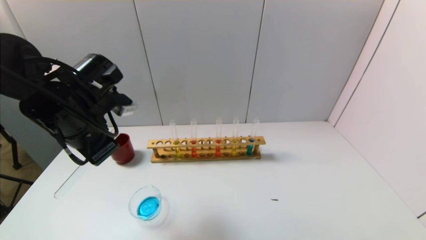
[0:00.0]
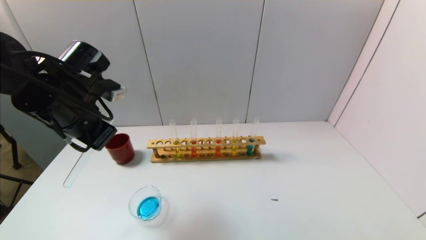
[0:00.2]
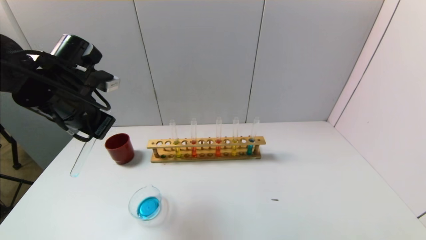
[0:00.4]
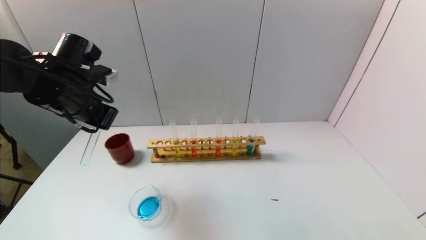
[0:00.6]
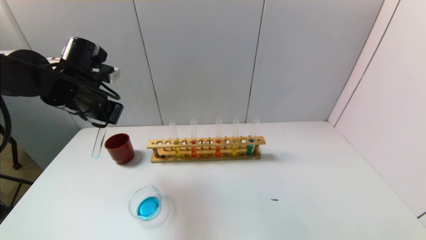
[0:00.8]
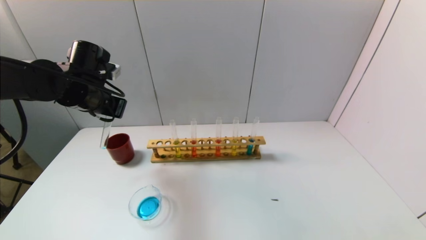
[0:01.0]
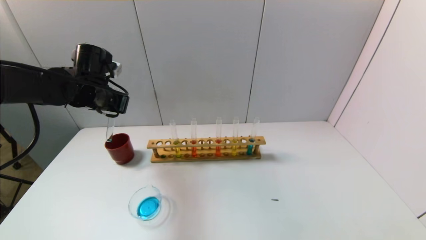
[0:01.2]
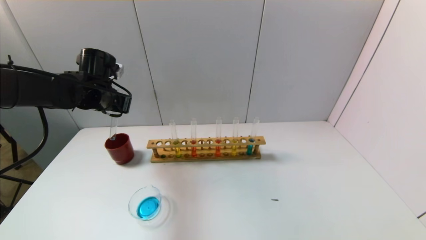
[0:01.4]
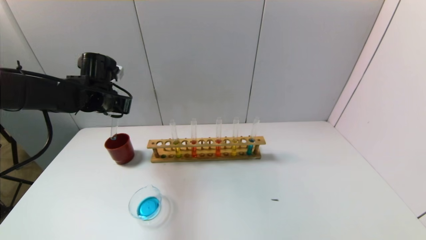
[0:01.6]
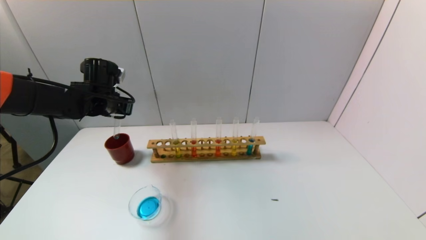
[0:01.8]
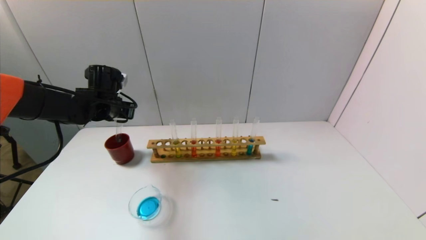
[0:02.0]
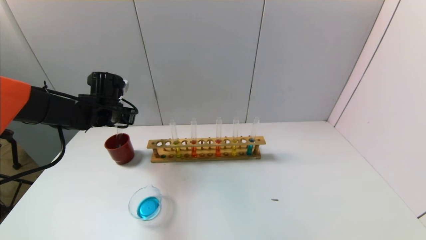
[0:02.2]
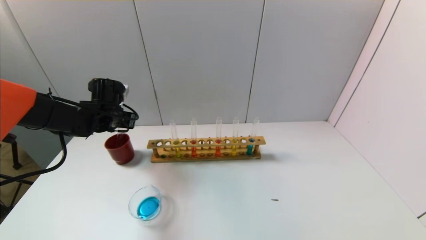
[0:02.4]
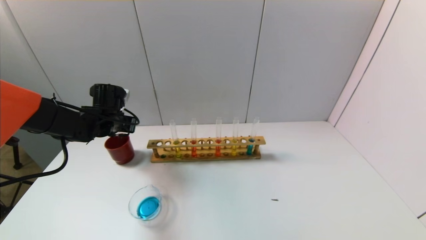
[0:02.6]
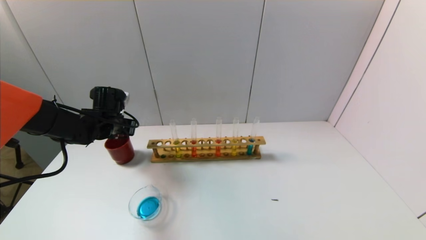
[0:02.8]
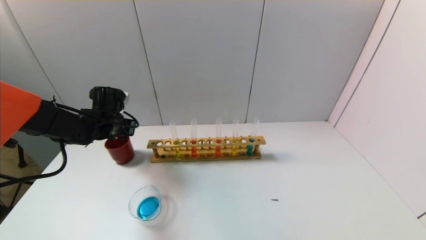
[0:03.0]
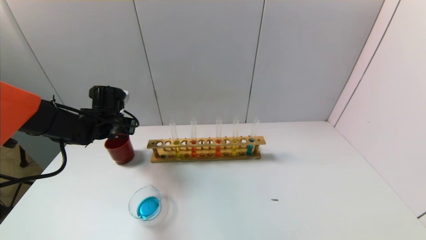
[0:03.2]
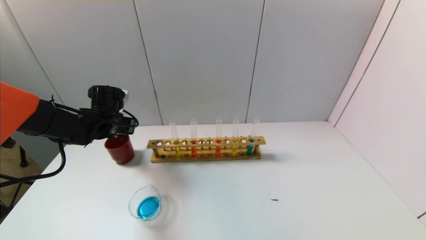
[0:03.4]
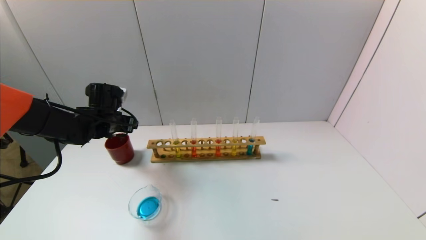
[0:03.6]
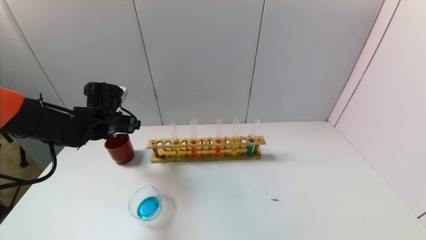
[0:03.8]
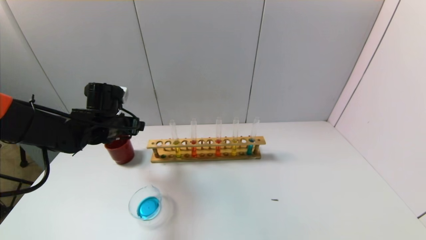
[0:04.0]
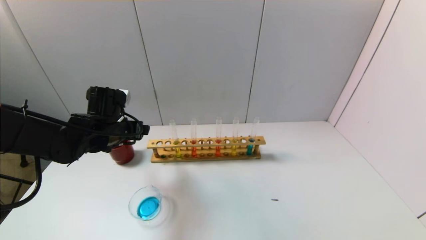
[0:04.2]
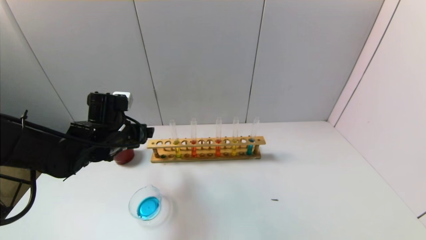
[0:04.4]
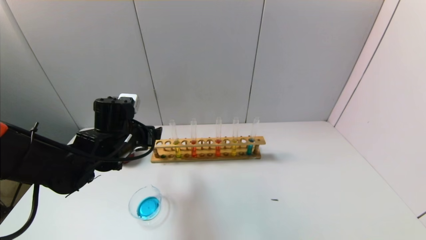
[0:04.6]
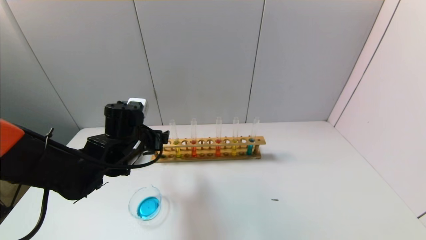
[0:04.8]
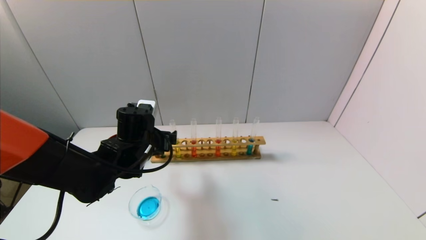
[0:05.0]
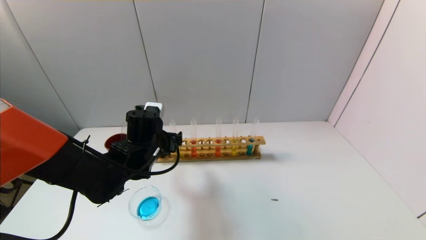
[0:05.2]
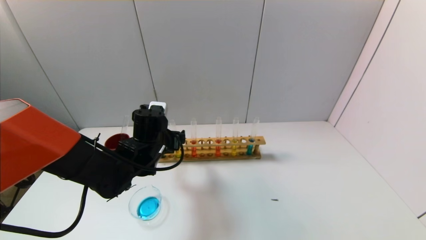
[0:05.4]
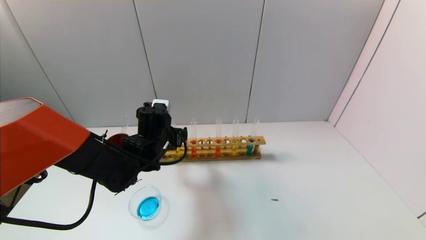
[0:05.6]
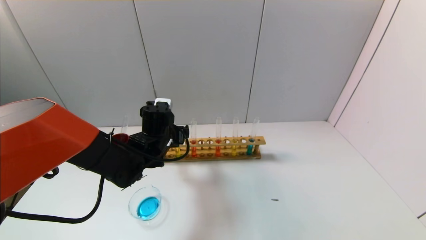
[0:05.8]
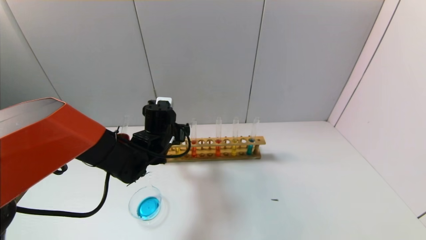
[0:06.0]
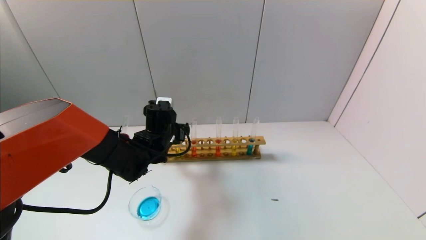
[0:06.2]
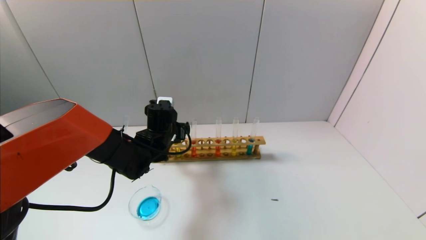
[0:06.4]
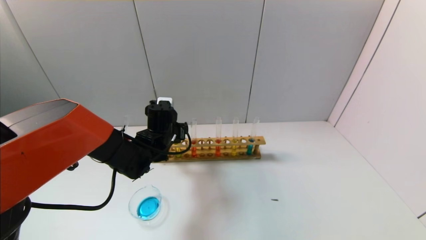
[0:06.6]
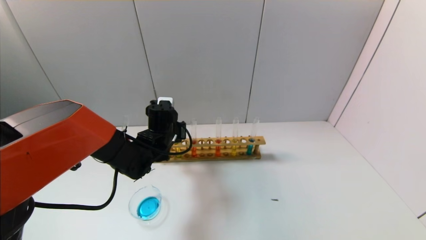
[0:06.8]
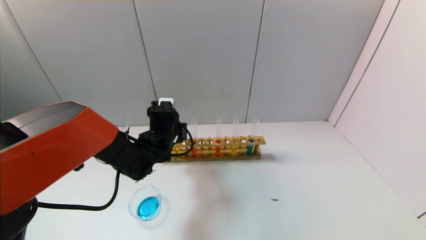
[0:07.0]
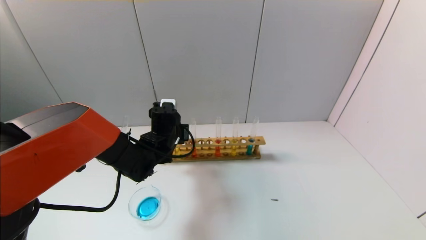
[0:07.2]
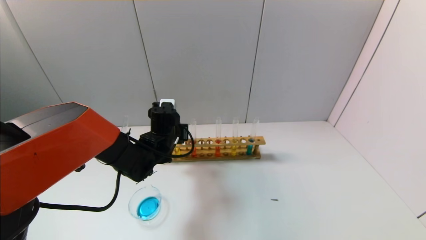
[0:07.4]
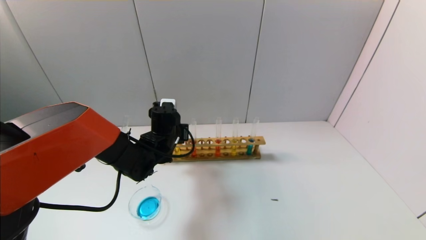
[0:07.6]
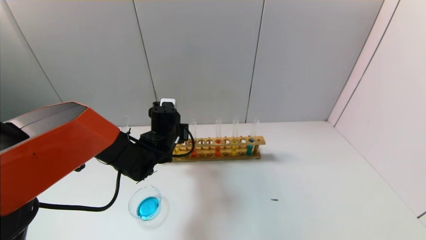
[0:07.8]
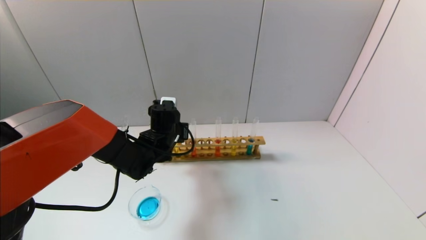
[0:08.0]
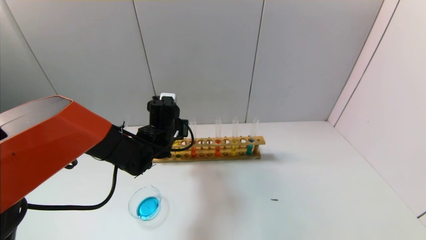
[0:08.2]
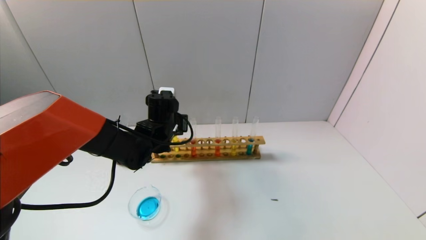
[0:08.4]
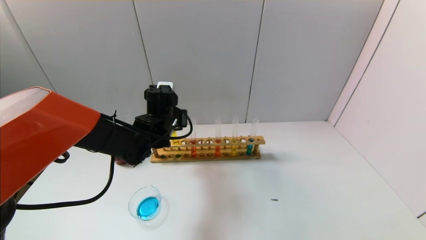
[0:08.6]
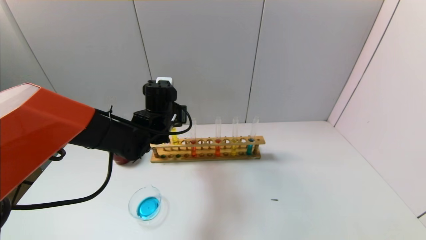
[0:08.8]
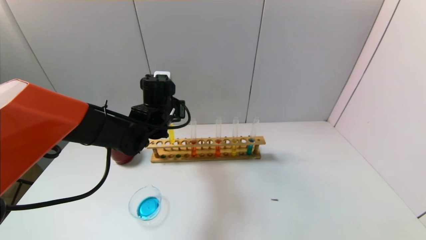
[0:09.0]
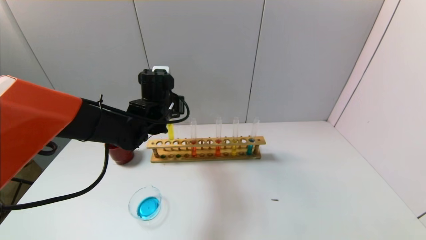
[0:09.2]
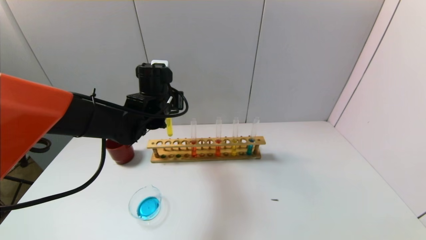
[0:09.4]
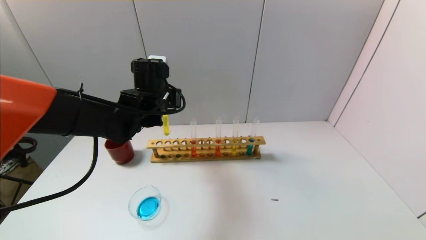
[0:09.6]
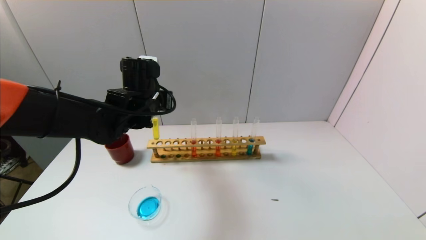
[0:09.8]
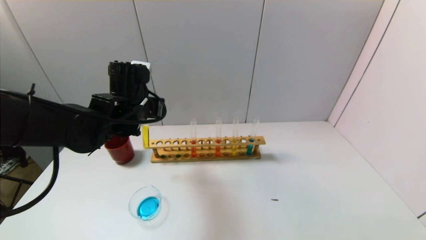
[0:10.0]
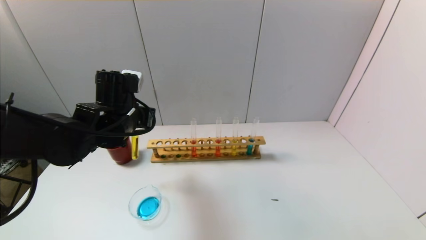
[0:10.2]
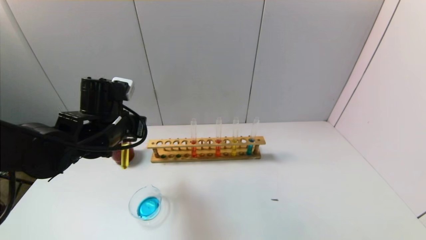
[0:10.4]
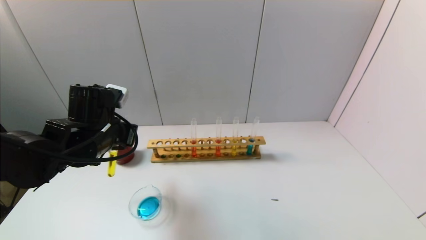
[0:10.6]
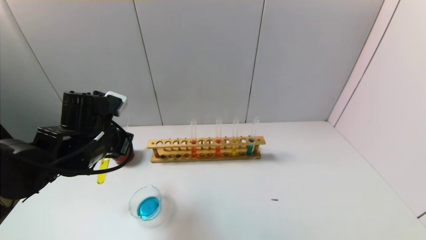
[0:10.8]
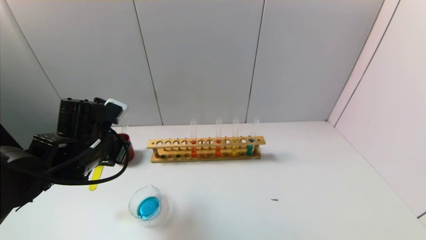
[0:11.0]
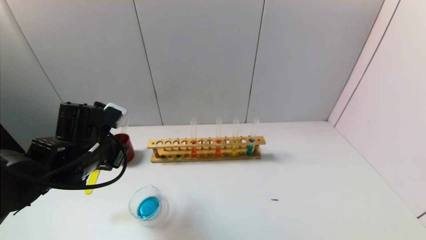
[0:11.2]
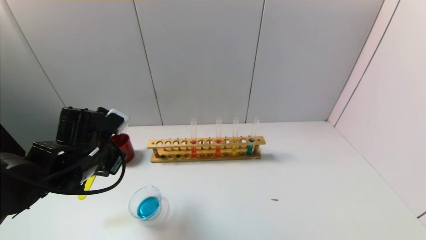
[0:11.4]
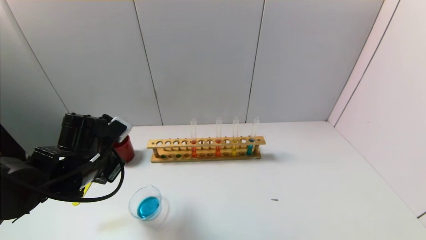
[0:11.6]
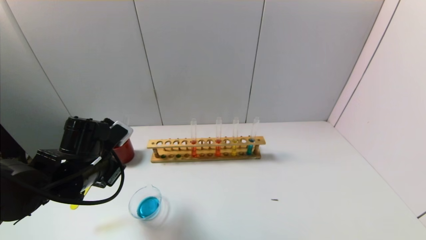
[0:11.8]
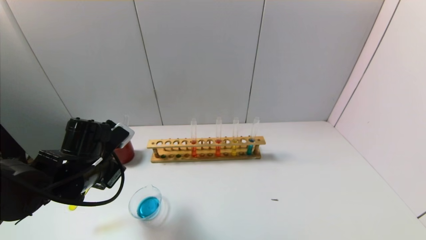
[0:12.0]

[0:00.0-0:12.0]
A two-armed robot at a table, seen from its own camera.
Task of the whole recording: pick up the test tube with yellow pigment and the test tube with blue pigment by grippers and pour them into the beaker.
Step, 0:00.0 to 0:03.2: Place the test tube into the brown cup with the left gripper.
Step, 0:03.4 to 0:07.6: Grasp the yellow reagent with the left gripper.
0:00.0 to 0:01.6: The left gripper is displaced forward by some 15 cm.
0:01.6 to 0:03.0: The left gripper heads downward, covering approximately 5 cm.
0:03.0 to 0:04.4: The left gripper travels backward and to the right by some 10 cm, and opens.
0:04.4 to 0:06.0: The left gripper travels to the right by about 10 cm.
0:06.0 to 0:07.6: The left gripper closes up.
0:07.6 to 0:09.0: The left gripper is displaced upward by some 5 cm.
0:09.0 to 0:10.4: The left gripper travels backward and to the left by approximately 10 cm.
0:10.4 to 0:12.0: The left gripper moves downward, approximately 5 cm.

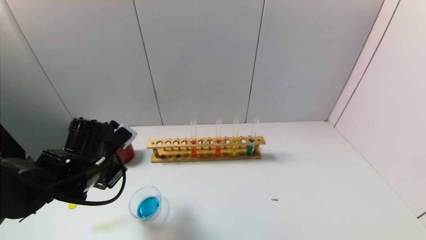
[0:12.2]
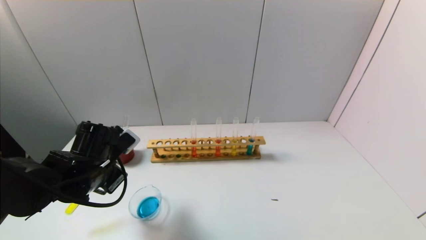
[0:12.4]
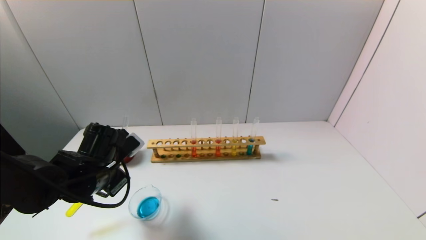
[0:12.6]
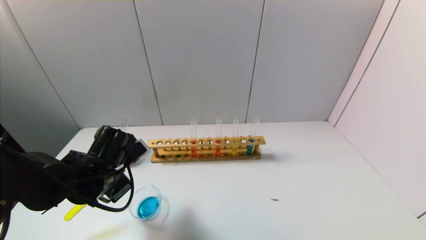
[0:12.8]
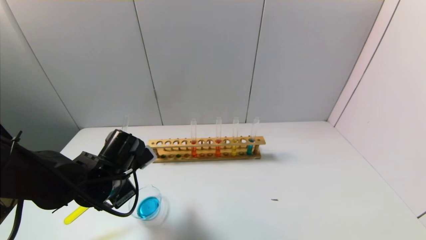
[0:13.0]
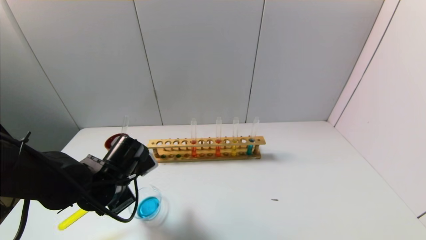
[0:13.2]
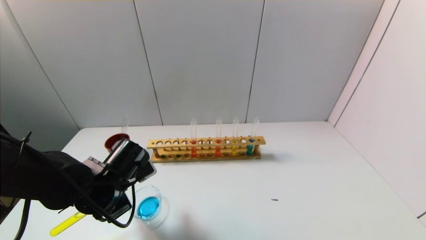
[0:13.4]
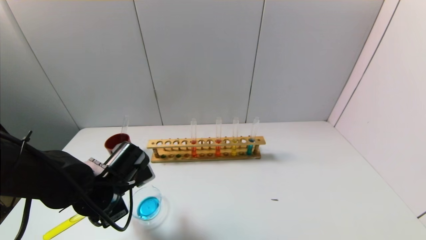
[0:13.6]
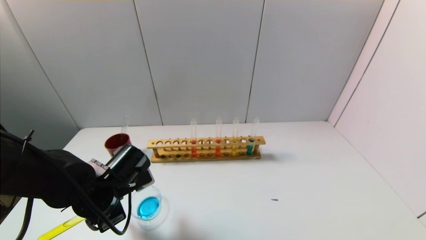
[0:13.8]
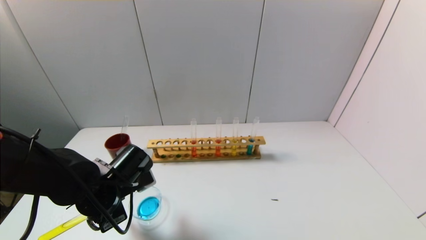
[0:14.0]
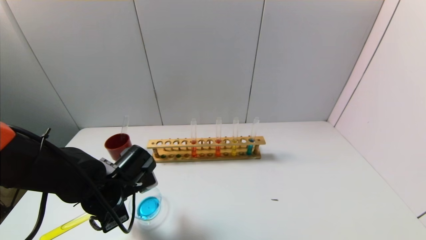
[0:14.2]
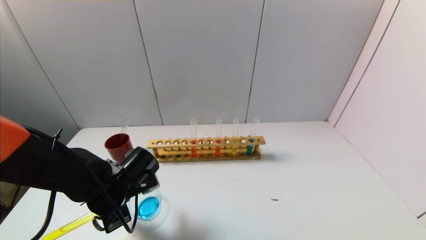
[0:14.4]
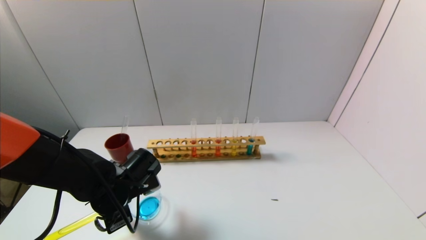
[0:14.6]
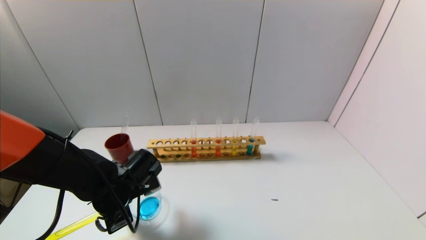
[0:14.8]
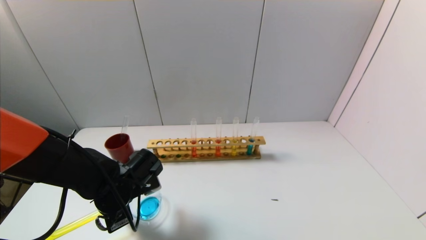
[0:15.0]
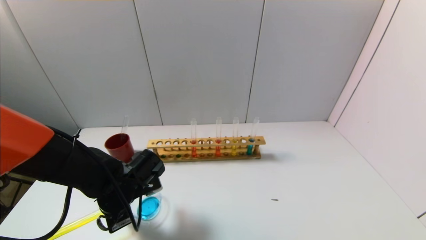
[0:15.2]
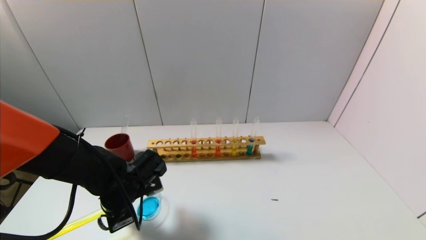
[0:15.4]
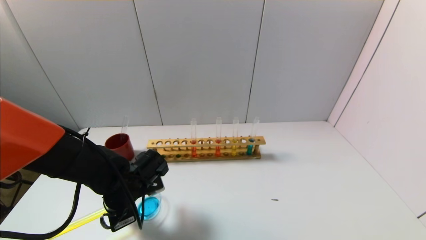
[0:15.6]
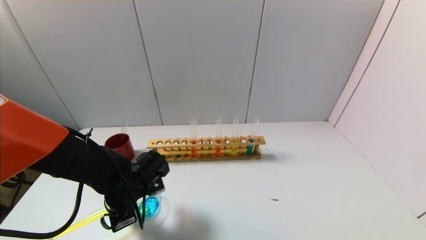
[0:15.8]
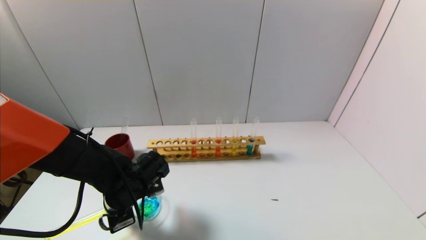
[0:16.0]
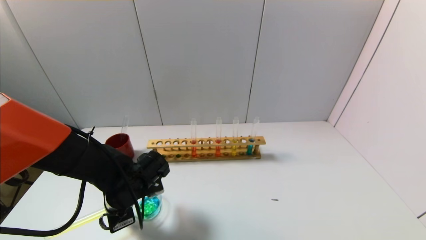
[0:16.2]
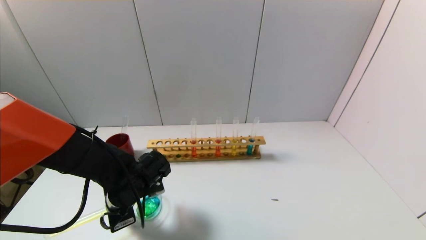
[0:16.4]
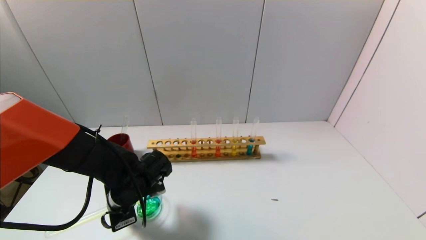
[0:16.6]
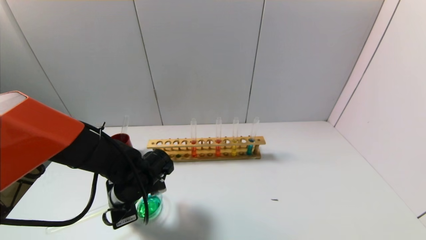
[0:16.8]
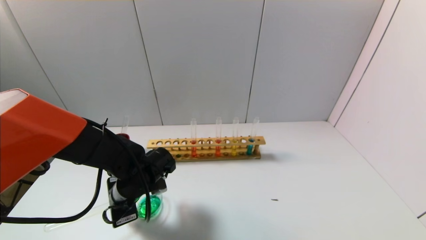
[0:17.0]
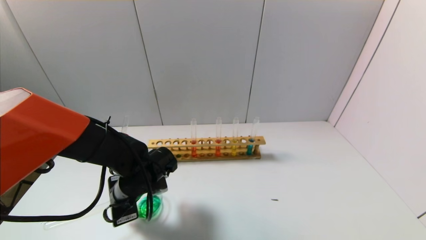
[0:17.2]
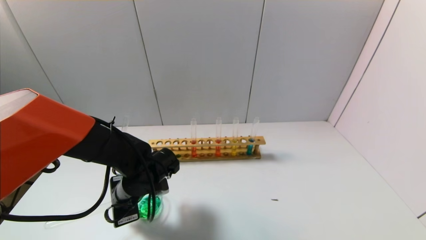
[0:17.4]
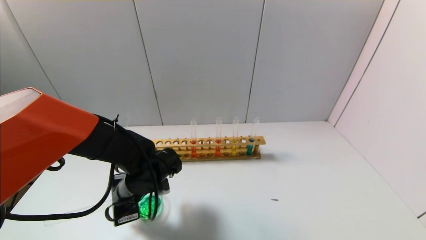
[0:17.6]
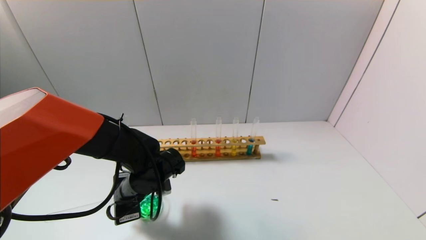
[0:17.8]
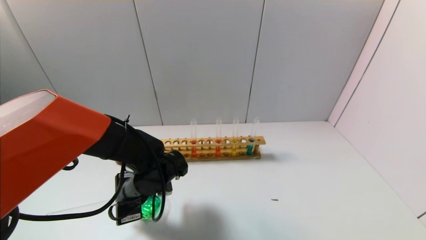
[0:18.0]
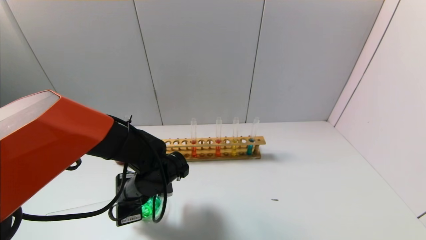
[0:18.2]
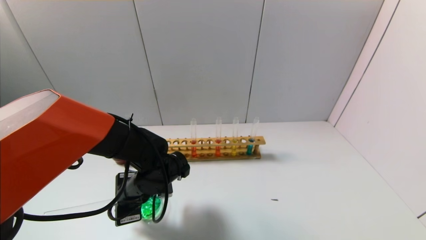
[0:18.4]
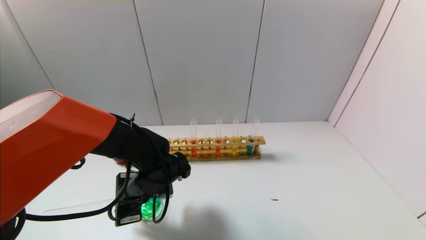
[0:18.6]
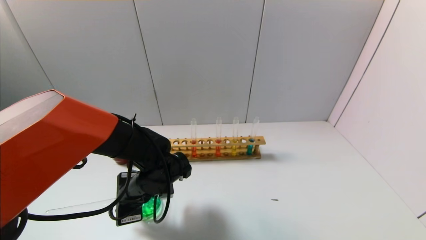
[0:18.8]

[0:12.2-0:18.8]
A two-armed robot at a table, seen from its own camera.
Task of the whole recording: pick up the test tube with yellow pigment and the test tube with blue pigment by grippers and pour them into the beaker.
0:12.2 to 0:13.8: The left gripper ends up roughly 5 cm from where it was.
0:13.8 to 0:17.2: The grippers move only a little.
0:17.2 to 0:18.8: The grippers make only small movements.
